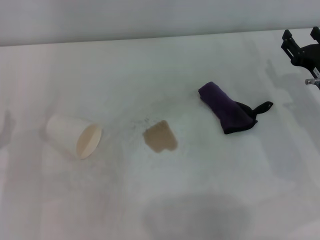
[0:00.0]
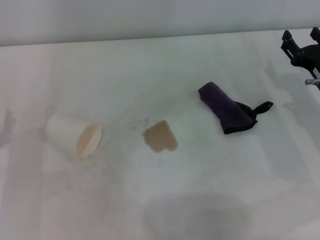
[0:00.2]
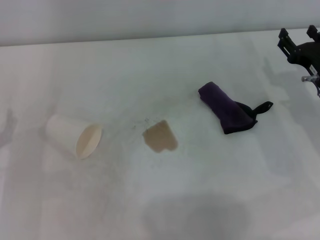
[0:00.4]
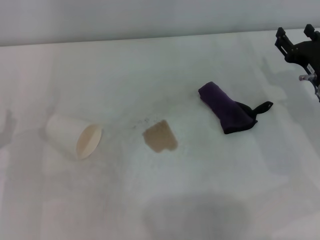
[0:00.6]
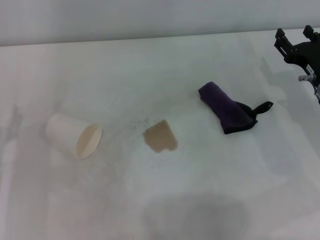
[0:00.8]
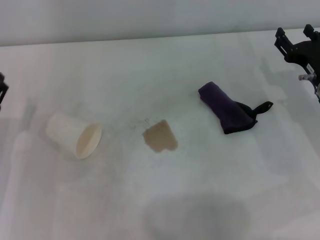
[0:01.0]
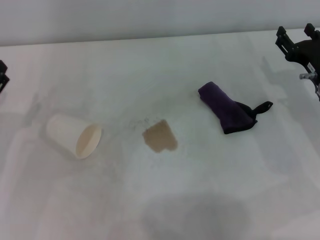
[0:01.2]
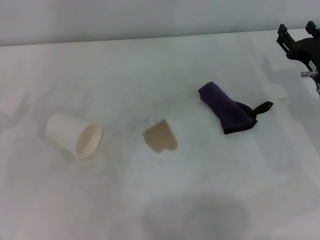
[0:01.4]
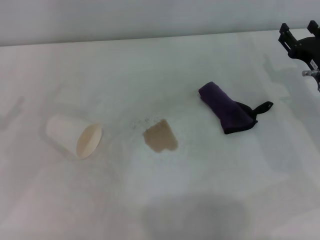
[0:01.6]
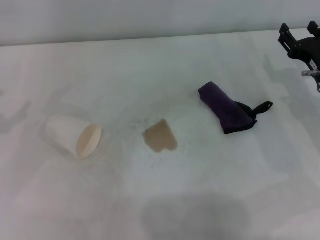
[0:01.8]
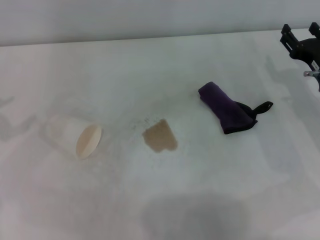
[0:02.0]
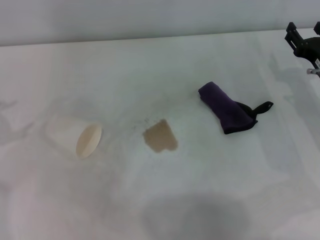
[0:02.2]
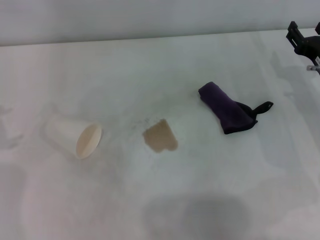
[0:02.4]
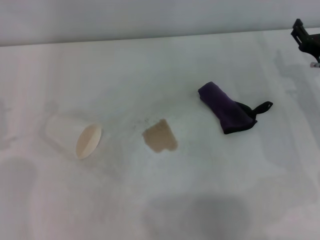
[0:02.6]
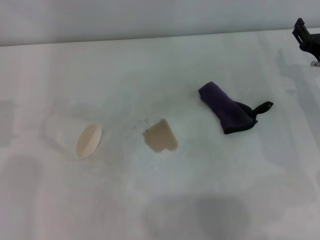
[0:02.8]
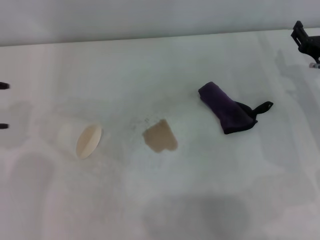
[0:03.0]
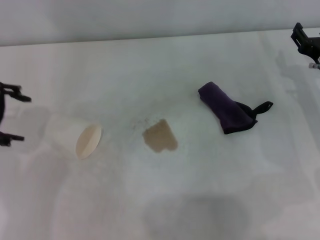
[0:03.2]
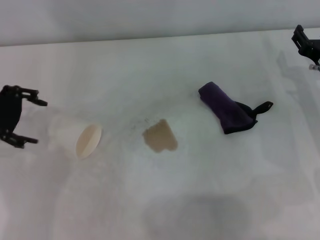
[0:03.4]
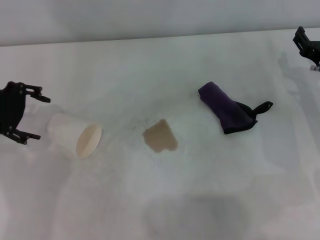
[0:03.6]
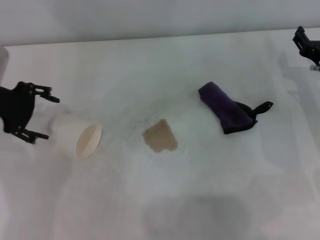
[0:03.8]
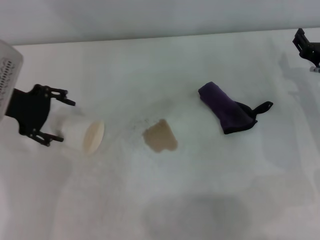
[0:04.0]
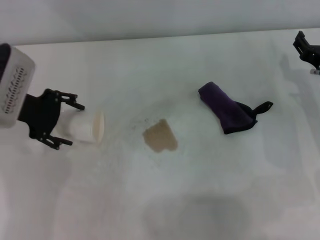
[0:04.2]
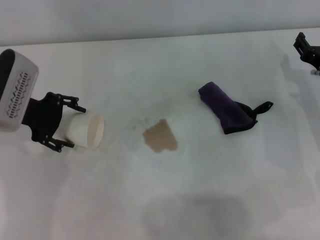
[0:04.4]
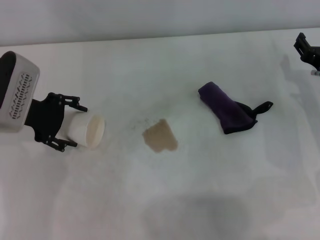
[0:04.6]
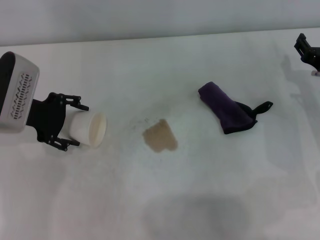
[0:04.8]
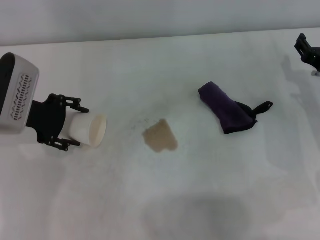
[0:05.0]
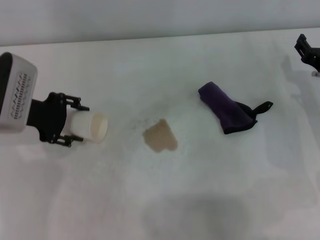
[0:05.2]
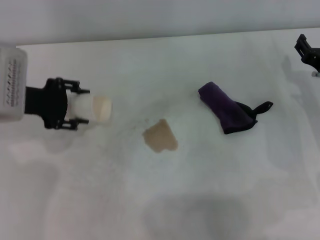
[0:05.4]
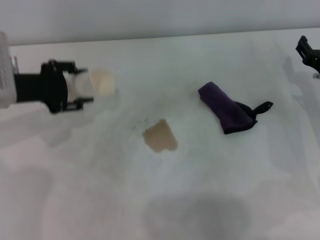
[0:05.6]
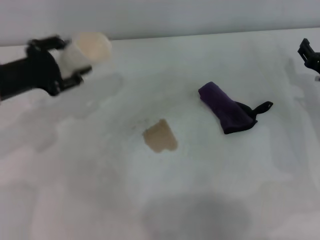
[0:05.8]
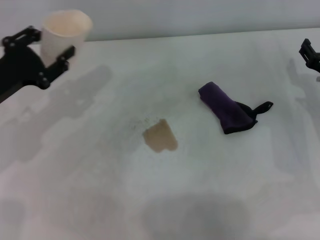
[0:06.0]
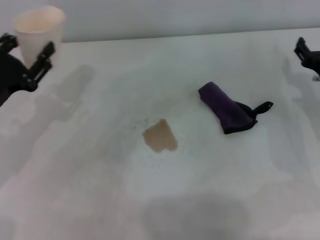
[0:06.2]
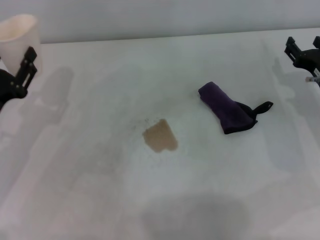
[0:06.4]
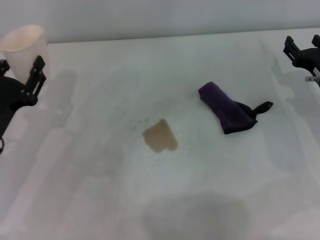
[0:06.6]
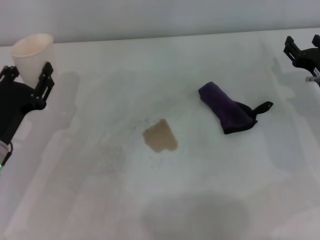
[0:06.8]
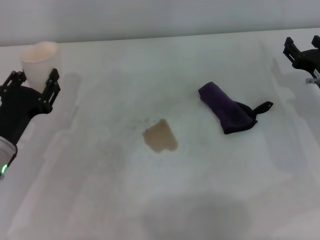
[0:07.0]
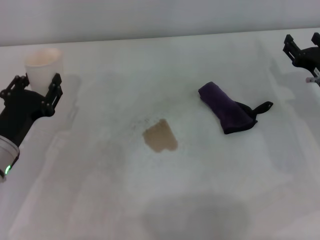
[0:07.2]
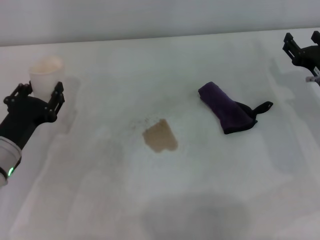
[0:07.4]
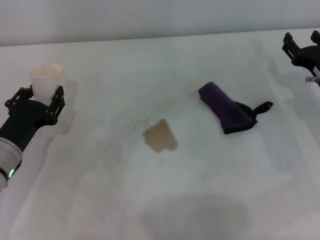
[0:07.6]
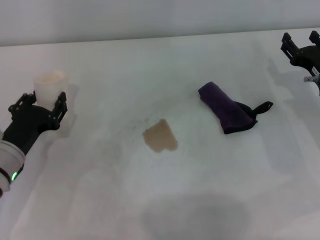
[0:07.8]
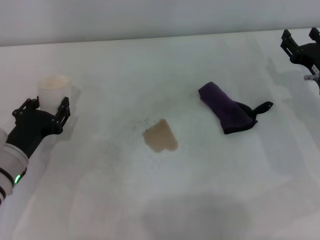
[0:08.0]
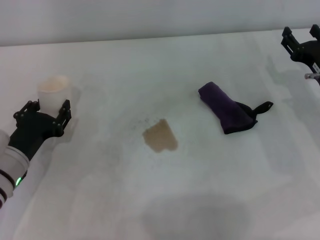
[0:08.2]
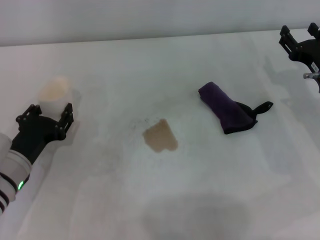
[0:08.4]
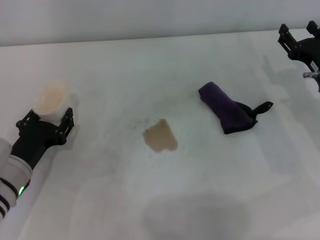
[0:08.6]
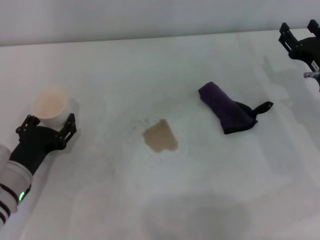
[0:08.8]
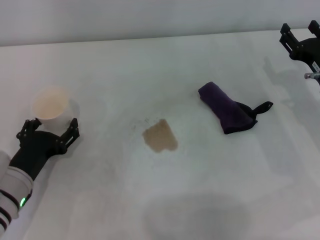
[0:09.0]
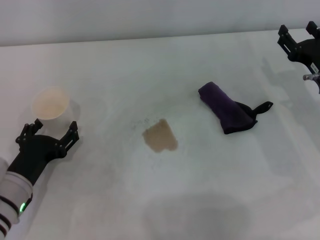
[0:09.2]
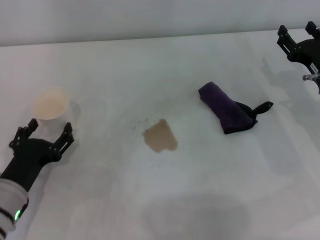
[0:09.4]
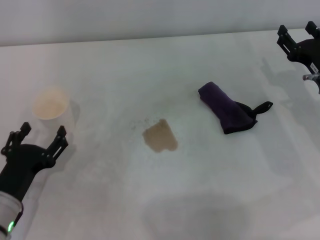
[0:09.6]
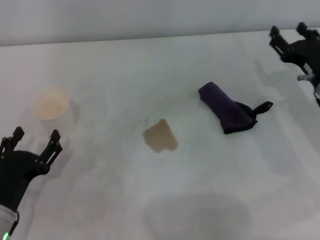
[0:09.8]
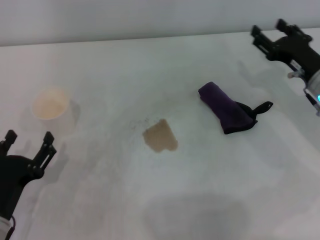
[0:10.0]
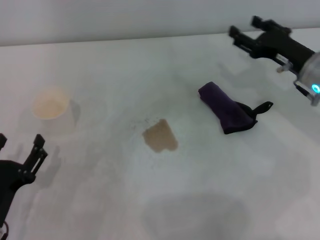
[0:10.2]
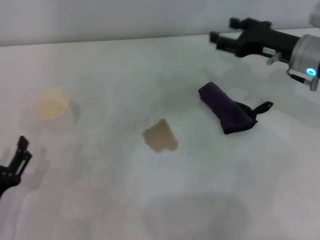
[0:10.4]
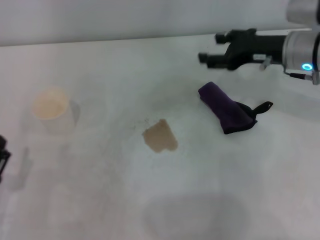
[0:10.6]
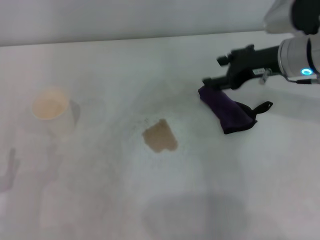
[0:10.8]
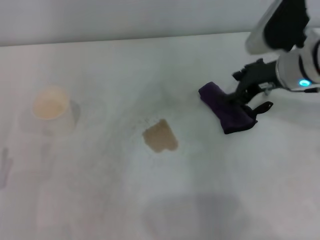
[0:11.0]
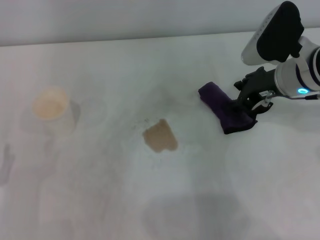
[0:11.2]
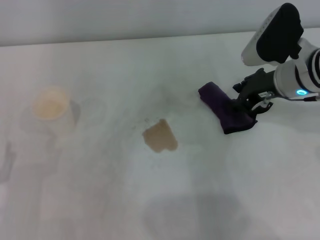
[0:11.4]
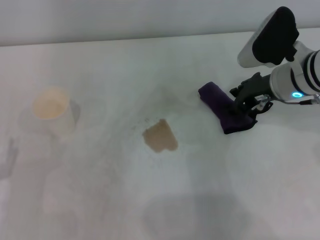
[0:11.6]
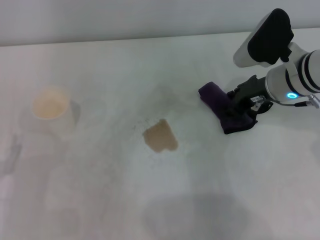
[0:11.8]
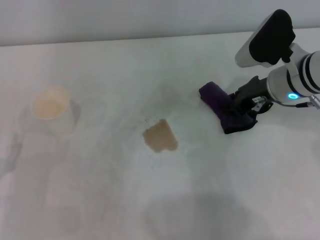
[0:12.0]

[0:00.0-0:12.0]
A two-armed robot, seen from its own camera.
Step, 0:00.0 to 0:04.6: Grasp the paper cup with the left gripper.
Step, 0:04.8 to 0:08.8: Stand the paper cup upright with the left gripper.
0:03.0 to 0:04.4: The left gripper moves to the right and downward, approximately 10 cm.
0:04.4 to 0:06.0: The left gripper moves backward, about 5 cm, and closes.
0:06.0 to 0:07.6: The left gripper is displaced downward by about 10 cm.
0:07.6 to 0:09.0: The left gripper opens its fingers.
0:09.0 to 0:10.4: The left gripper heads backward, covering approximately 10 cm, and opens its fingers; the right gripper is displaced upward by about 5 cm.
0:10.4 to 0:12.0: The right gripper closes its fingers.

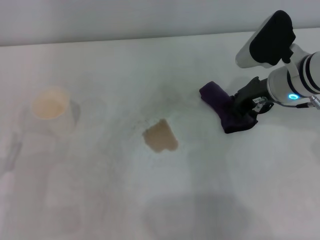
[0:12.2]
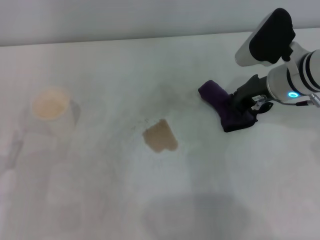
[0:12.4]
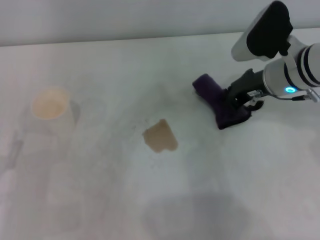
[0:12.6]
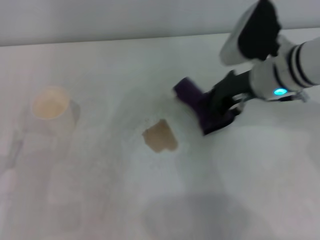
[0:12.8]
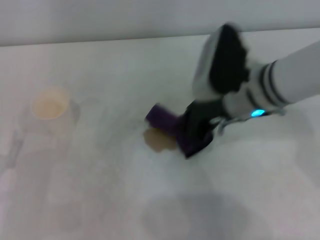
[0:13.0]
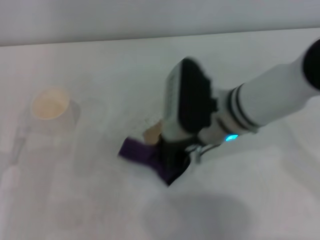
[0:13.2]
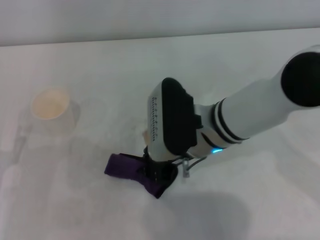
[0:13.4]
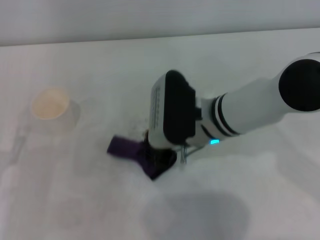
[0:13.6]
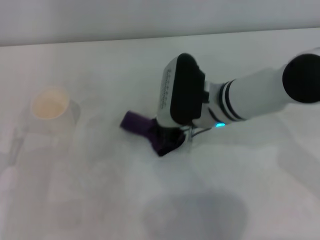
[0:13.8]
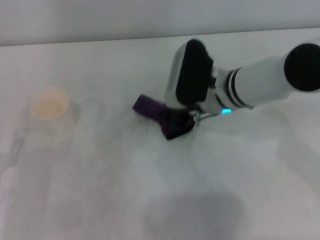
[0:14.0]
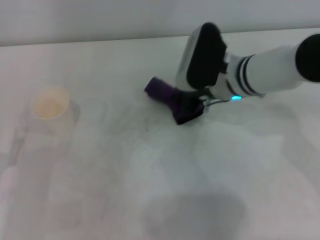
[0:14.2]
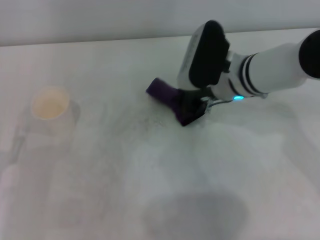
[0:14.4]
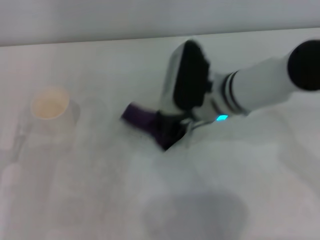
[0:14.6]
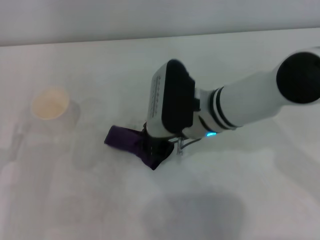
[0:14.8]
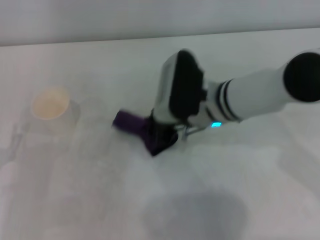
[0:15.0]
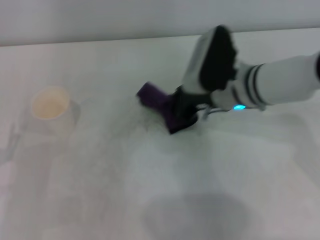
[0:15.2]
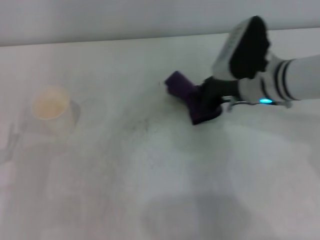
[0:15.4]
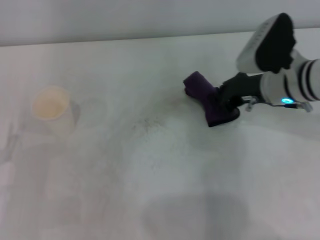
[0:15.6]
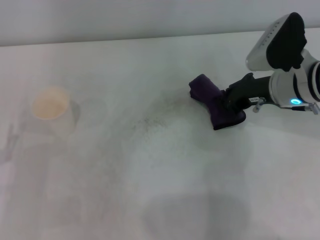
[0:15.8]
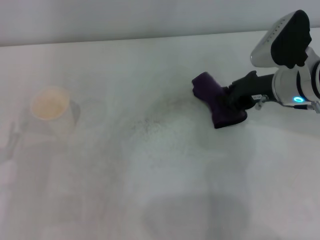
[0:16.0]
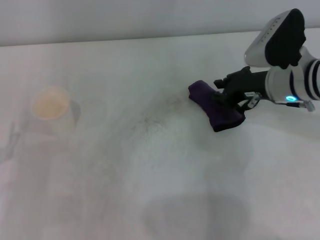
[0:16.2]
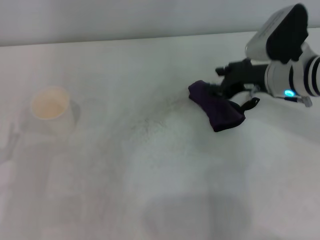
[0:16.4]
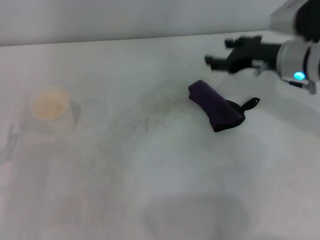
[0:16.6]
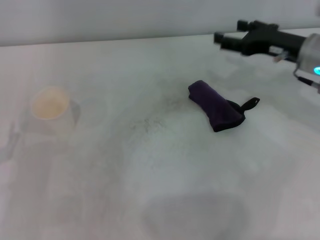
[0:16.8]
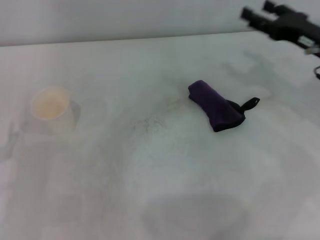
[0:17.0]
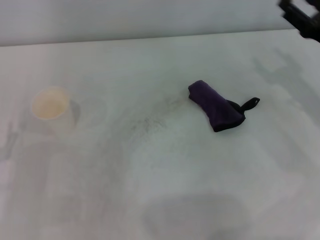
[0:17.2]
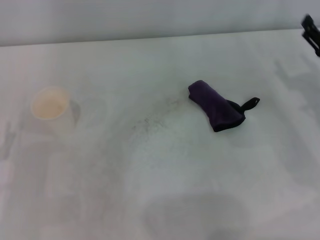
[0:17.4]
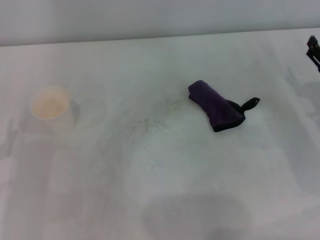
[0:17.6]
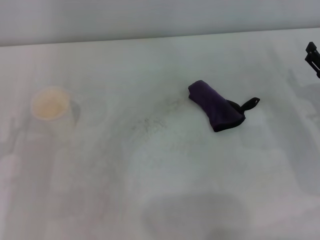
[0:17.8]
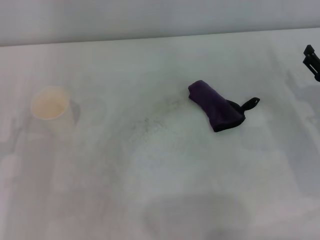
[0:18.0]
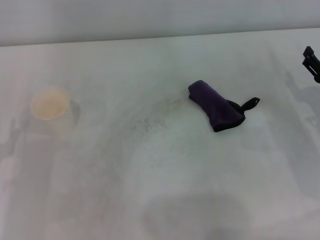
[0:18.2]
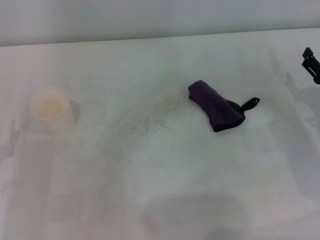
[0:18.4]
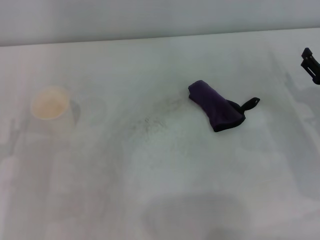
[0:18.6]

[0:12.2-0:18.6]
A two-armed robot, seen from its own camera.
Step, 0:12.4 to 0:15.2: Wipe the stains off the table with the right gripper.
Step, 0:15.4 to 0:16.2: Place the rag on the table with the right gripper.
0:12.2 to 0:13.8: The right gripper travels to the left by about 10 cm.
0:13.8 to 0:15.4: The right gripper is displaced to the right by some 10 cm.
0:15.4 to 0:17.0: The right gripper goes approximately 10 cm to the right, and opens its fingers.
0:17.0 to 0:18.6: The right gripper travels downward and backward by some 10 cm.

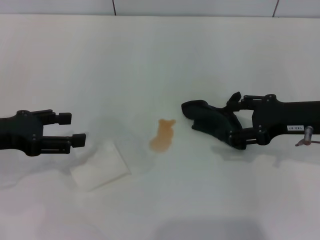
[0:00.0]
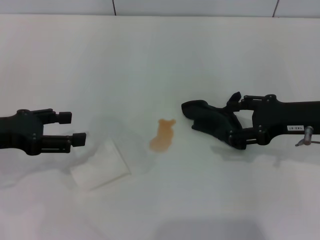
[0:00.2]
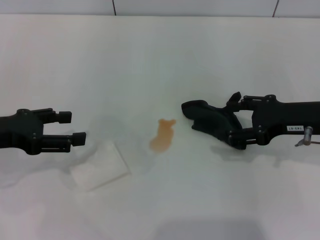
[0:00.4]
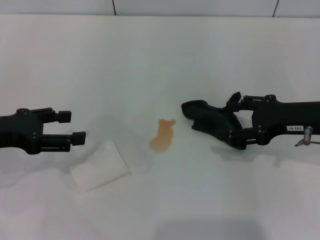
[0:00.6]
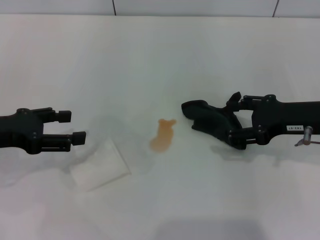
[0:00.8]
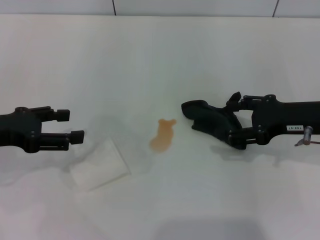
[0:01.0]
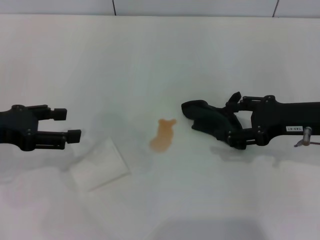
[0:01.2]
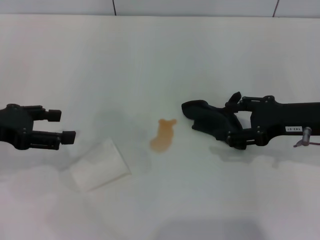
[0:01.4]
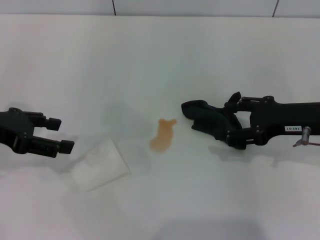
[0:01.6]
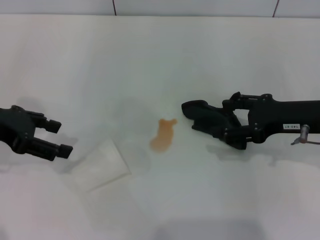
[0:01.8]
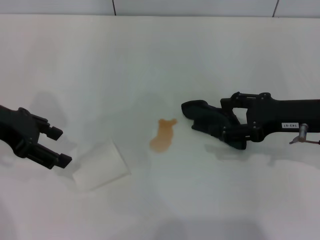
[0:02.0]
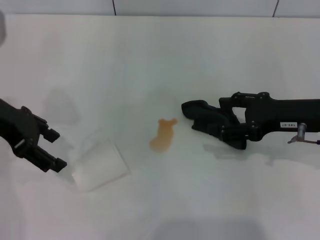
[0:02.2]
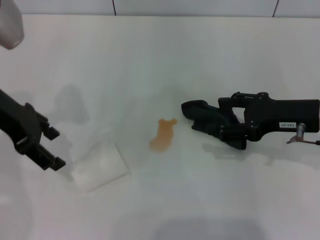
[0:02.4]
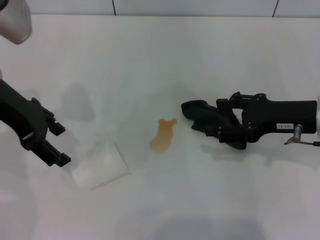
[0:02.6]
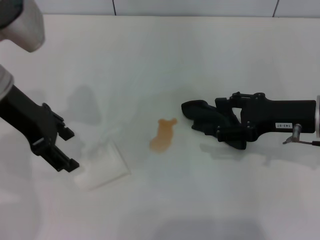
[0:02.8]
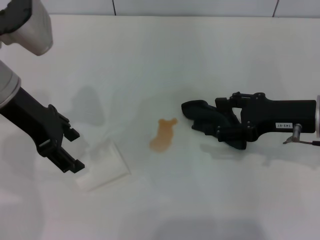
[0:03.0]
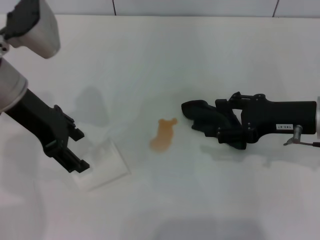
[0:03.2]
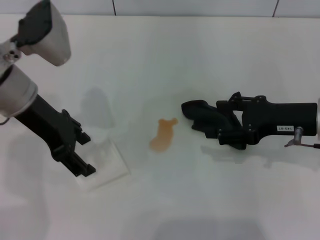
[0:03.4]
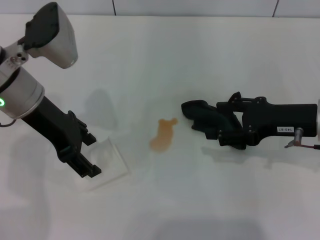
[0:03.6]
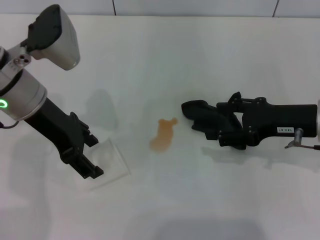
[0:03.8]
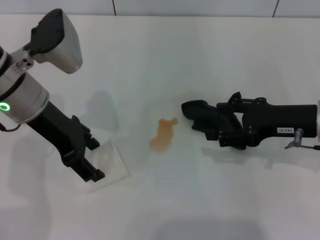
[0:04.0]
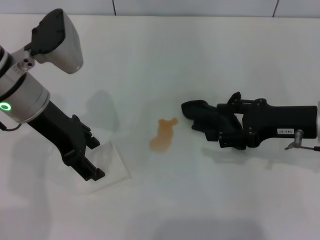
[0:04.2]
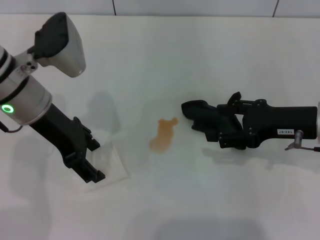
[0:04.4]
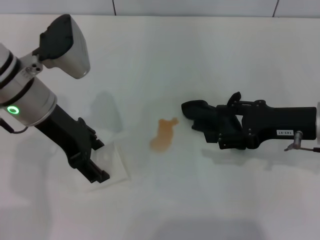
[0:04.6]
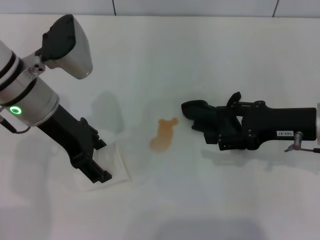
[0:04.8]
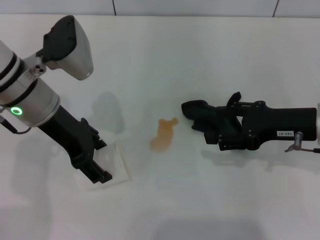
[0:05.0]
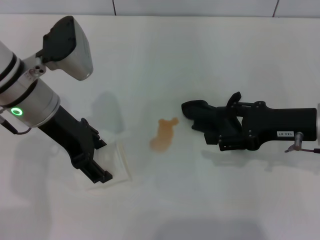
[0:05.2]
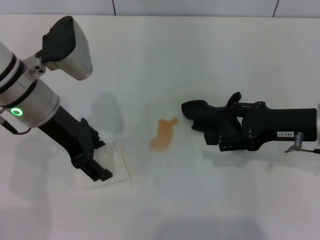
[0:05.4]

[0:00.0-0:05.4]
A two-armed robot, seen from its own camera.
0:00.0 to 0:01.4: There are only small adjustments of the grippers.
0:01.4 to 0:02.8: The left gripper moves to the right and forward, some 10 cm.
0:02.8 to 0:05.4: The grippers move only a little.
